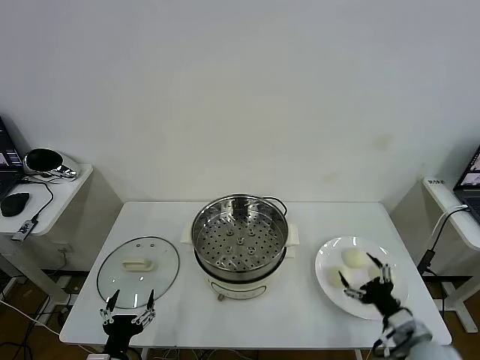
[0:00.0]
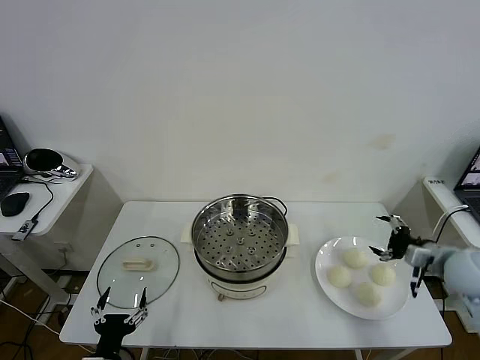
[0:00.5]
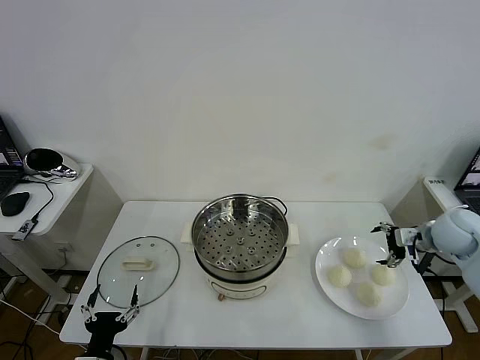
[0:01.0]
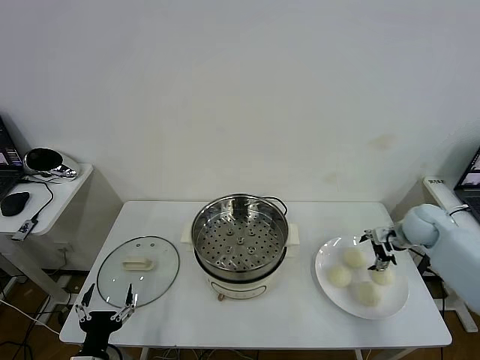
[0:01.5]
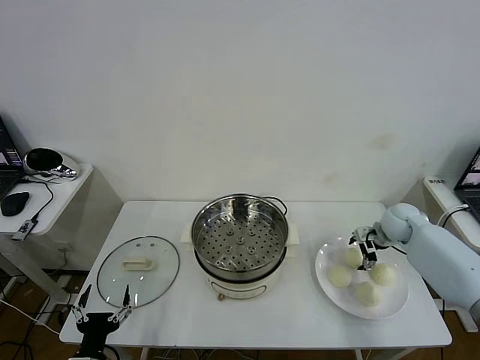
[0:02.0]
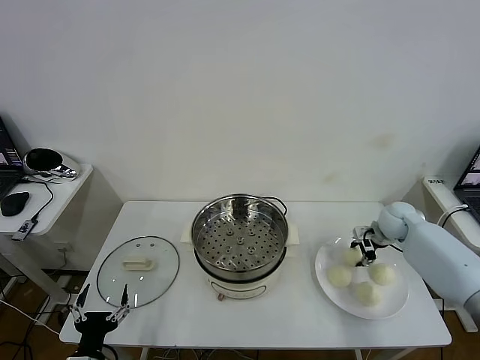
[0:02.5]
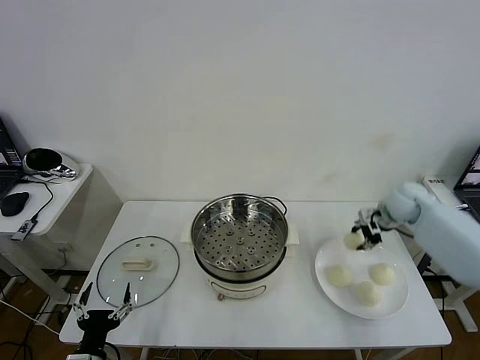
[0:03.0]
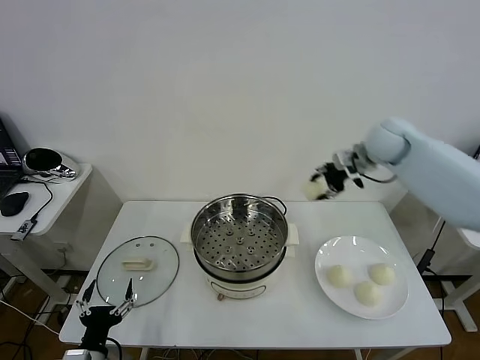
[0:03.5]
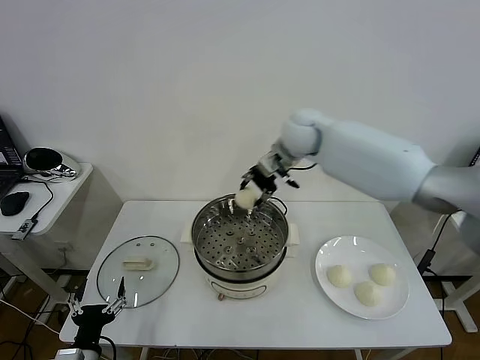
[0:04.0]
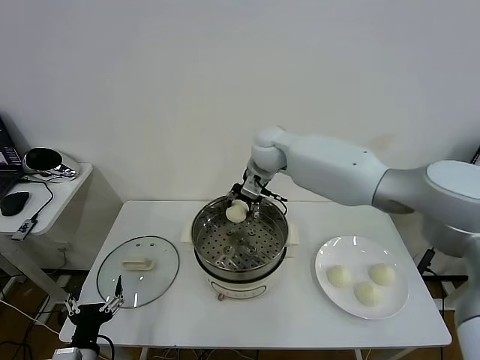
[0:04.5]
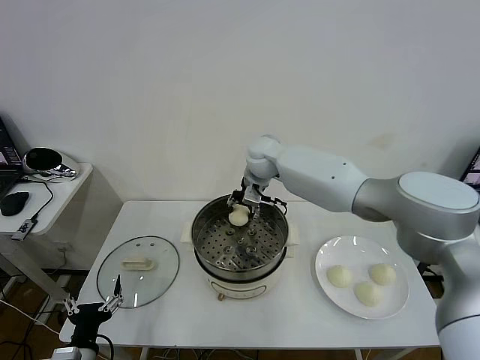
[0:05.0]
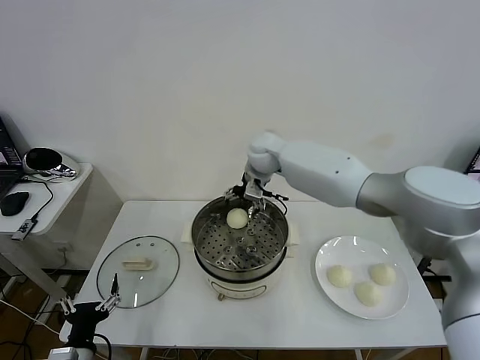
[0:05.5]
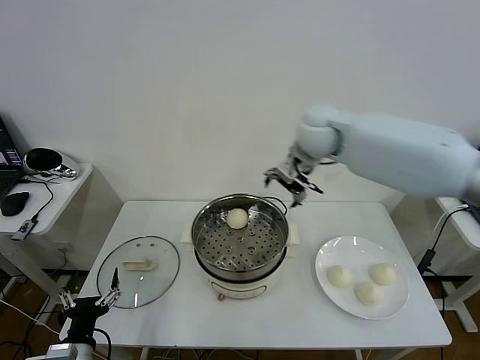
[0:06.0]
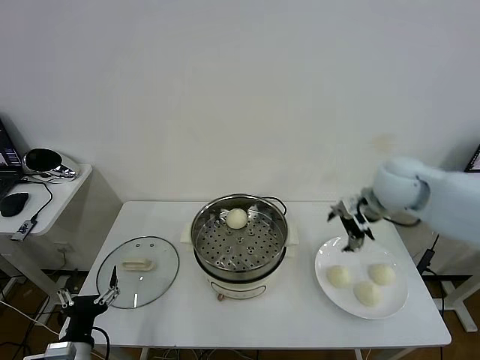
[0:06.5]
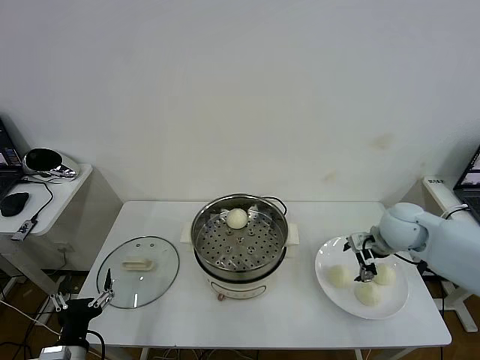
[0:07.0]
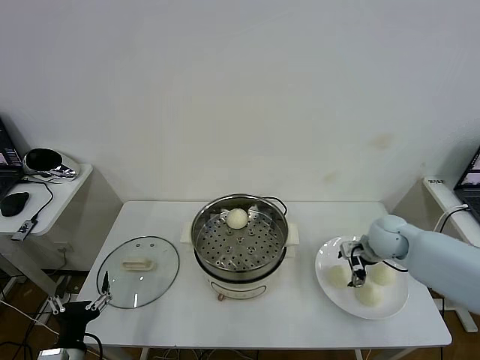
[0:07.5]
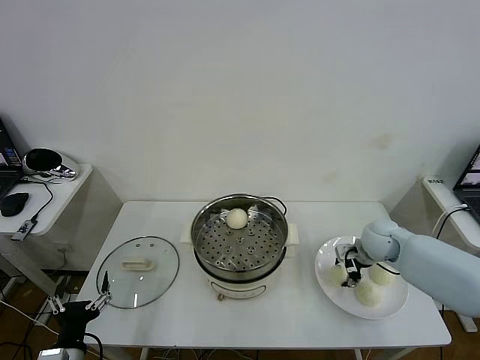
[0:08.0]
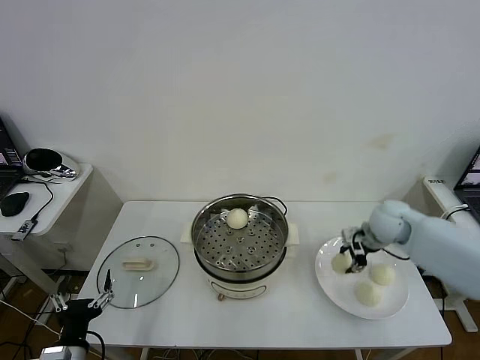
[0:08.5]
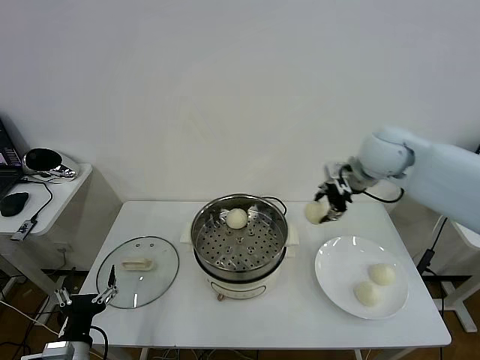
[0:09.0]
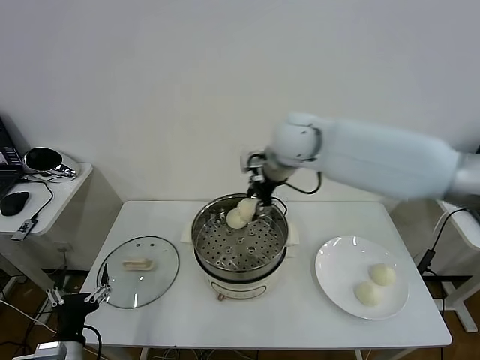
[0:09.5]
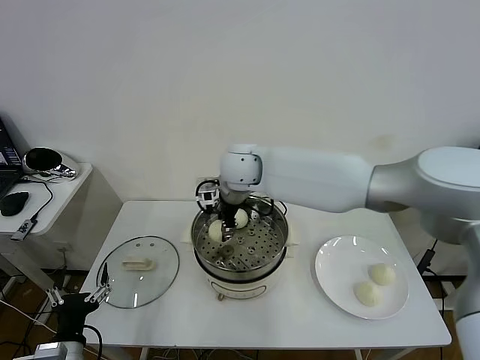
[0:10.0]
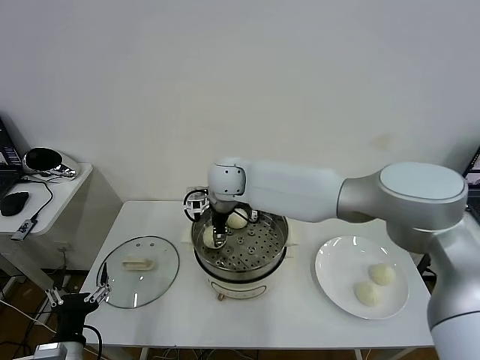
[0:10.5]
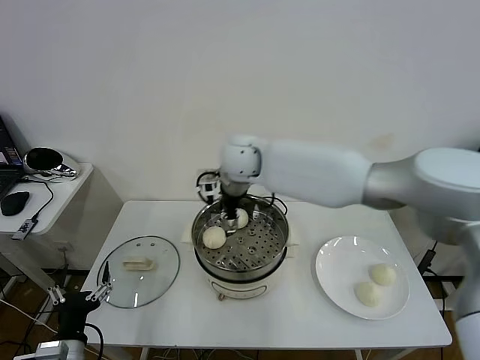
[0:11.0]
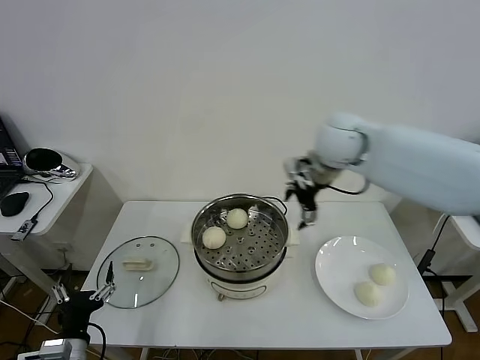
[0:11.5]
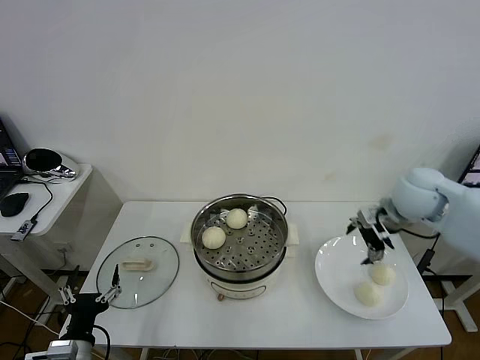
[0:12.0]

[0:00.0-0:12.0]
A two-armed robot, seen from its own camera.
Task of the whole recording: take steamed baozi put them in steamer then cover it.
Step, 0:00.0 to 0:02.5: Grasp the baozi in the plate with right gripper.
Step, 0:03.0 to 0:05.0: Place the baozi on the steamer with right gripper.
Step, 0:05.5 to 0:08.0: Grasp the baozi in the plate with right gripper.
Step, 0:08.5 to 0:10.5: Place the baozi on the steamer with right gripper.
0:02.0 to 0:04.0: The right gripper moves to the left and upward, roughly 35 cm, and closes up.
0:04.0 to 0:06.0: The right gripper opens its fingers.
0:06.0 to 0:08.0: The right gripper travels downward and to the right by about 30 cm, and closes.
0:08.0 to 0:10.0: The right gripper heads to the left and upward, covering some 40 cm.
0:10.0 to 0:12.0: The right gripper shifts some 35 cm to the right, and opens up.

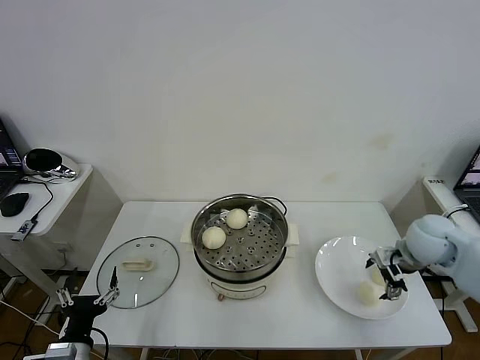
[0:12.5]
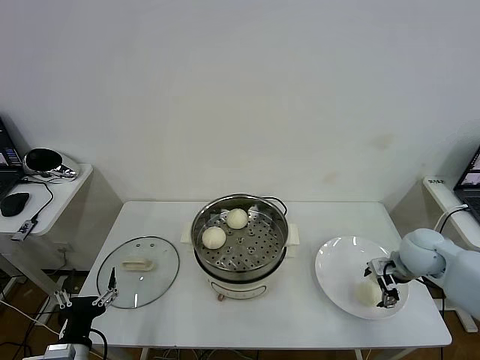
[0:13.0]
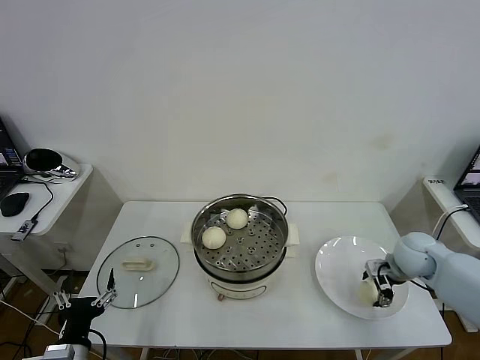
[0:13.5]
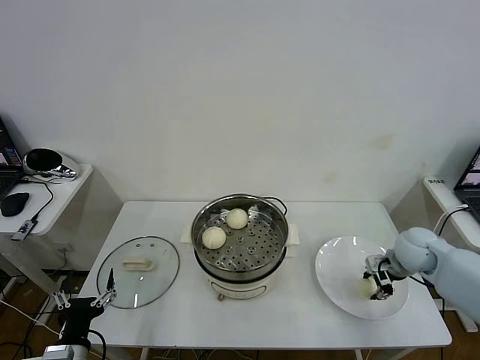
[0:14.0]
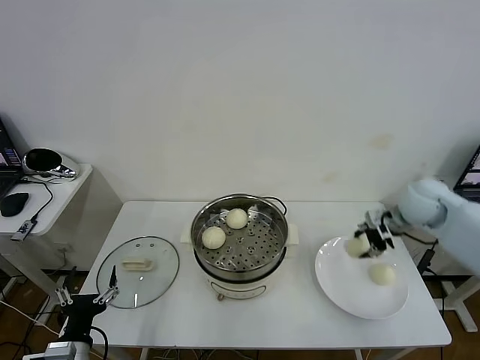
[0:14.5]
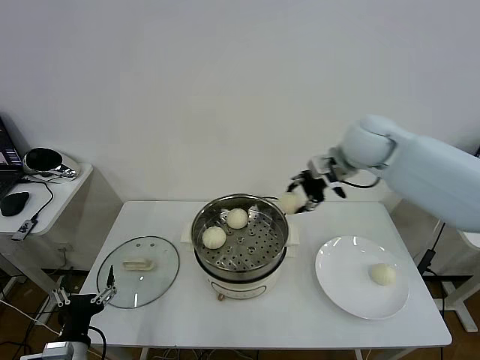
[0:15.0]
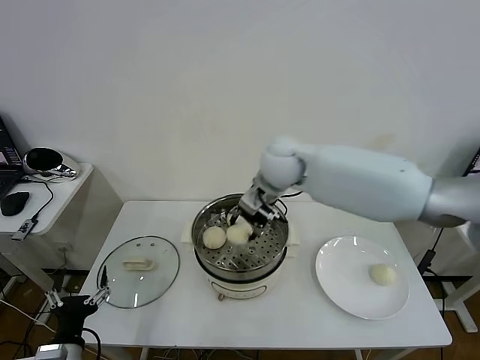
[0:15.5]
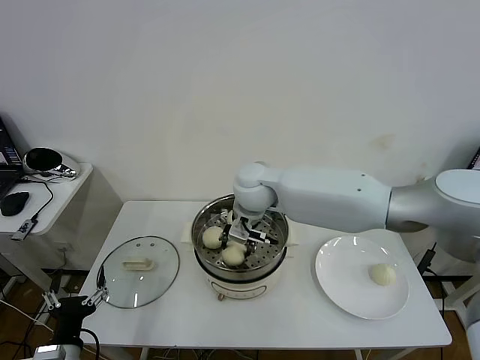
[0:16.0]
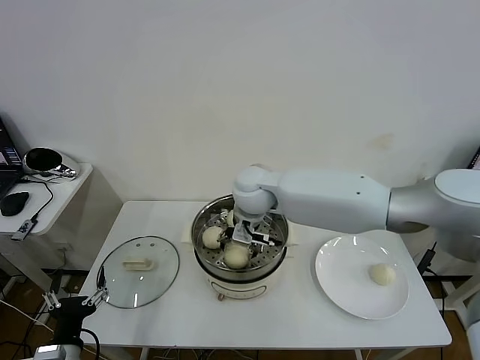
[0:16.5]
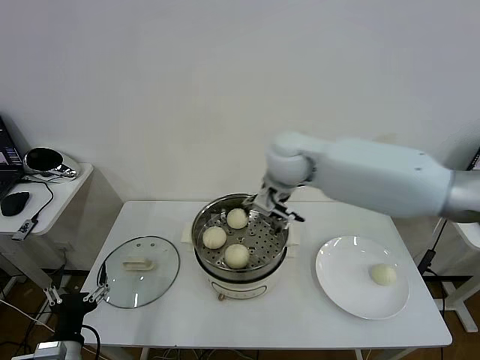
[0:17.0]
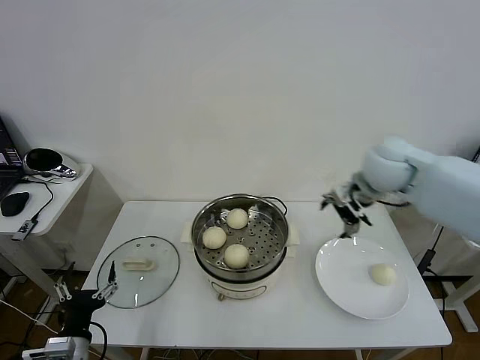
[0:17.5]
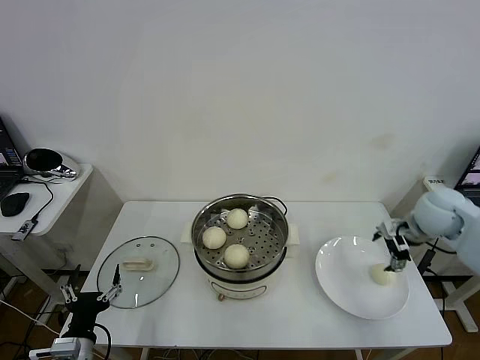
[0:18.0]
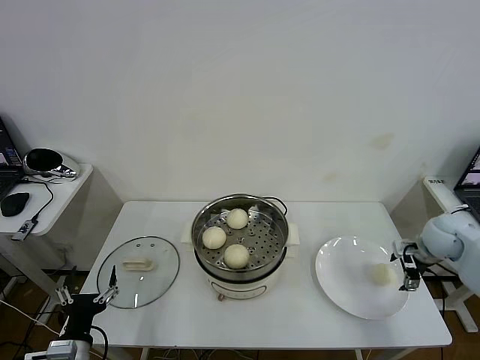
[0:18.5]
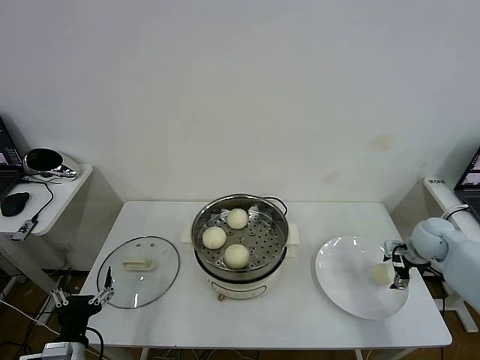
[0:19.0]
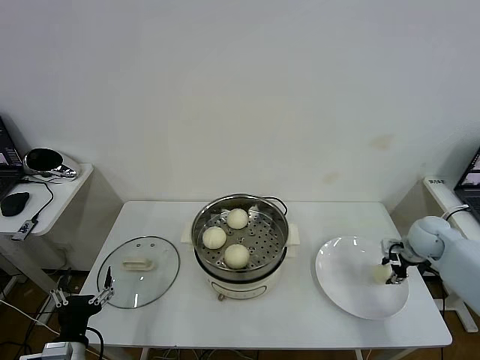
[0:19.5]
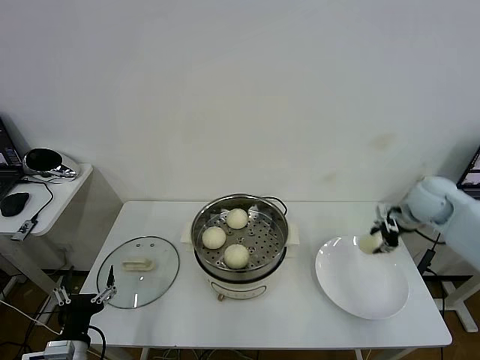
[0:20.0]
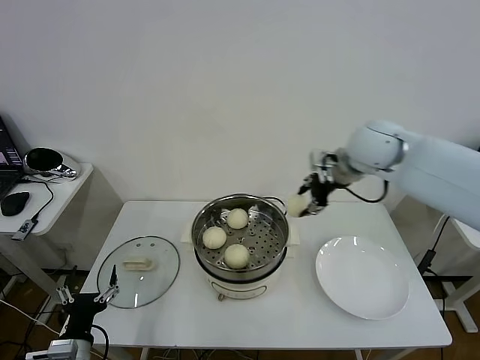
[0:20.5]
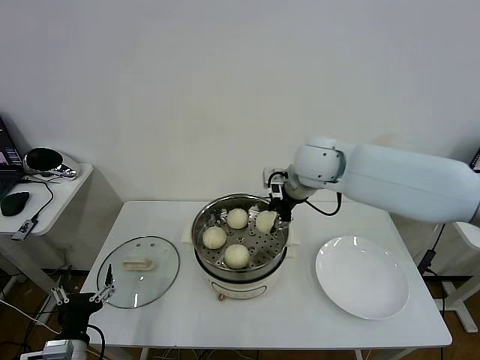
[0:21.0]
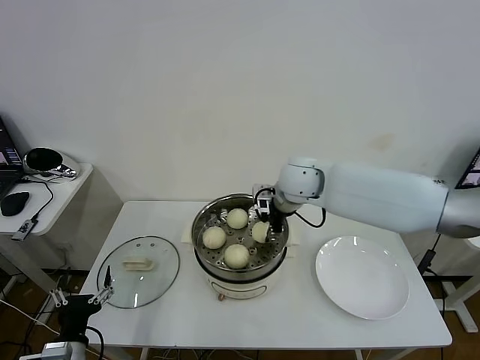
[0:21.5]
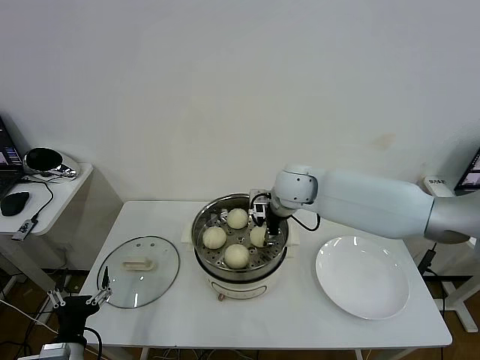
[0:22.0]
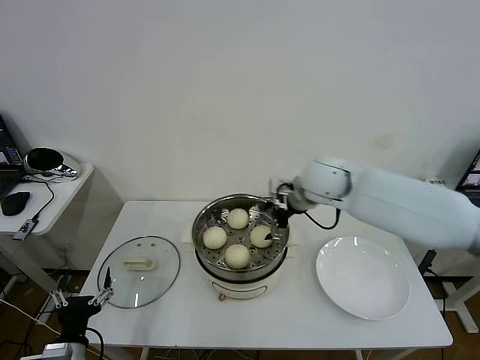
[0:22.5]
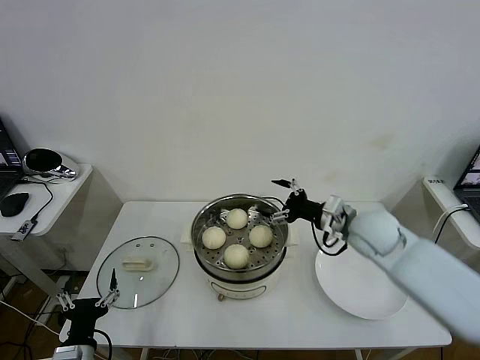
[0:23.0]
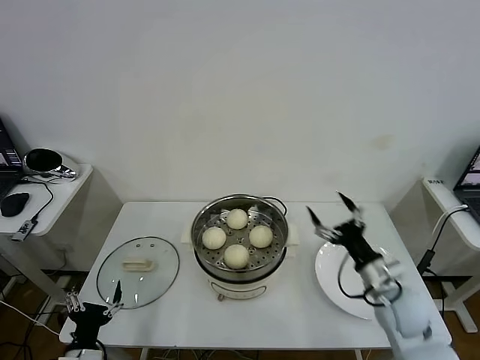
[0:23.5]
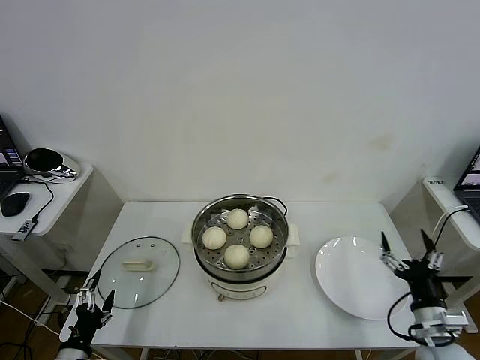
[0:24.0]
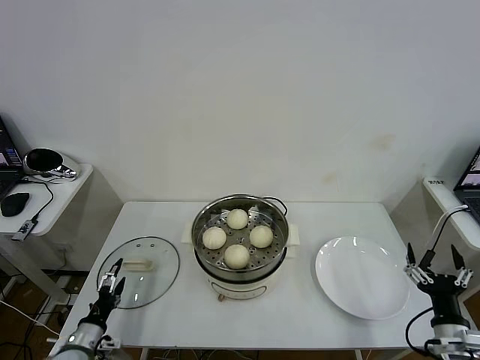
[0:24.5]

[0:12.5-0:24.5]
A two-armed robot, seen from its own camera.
Task of the whole recording: take steamed baozi put them in steamer then cover it.
Step, 0:14.0 to 0:16.5: Place the baozi on the steamer with right gripper.
Step, 0:17.0 to 0:19.5: Grasp the baozi in the plate with right gripper.
Step, 0:20.0 to 0:22.0: Place the baozi on the steamer with right gripper.
0:12.5 to 0:14.5: The right gripper heads forward and upward, covering roughly 10 cm, and closes up.
0:14.5 to 0:16.5: The right gripper shifts approximately 35 cm to the left, and opens up.
0:16.5 to 0:18.5: The right gripper moves to the right, roughly 40 cm.
0:18.5 to 0:20.5: The right gripper is displaced to the left and upward by about 30 cm, and closes.
0:20.5 to 0:22.5: The right gripper shifts roughly 10 cm to the left and downward, and opens.
0:22.5 to 0:24.5: The left gripper shifts approximately 10 cm downward and forward. Meanwhile the right gripper moves backward, to the right and downward, approximately 50 cm.

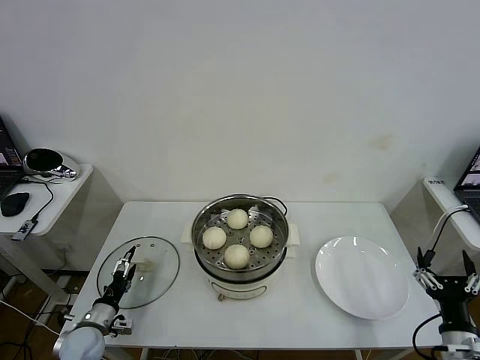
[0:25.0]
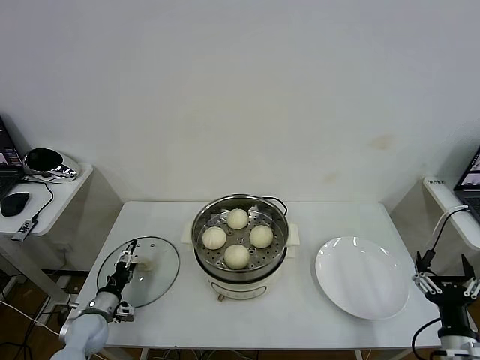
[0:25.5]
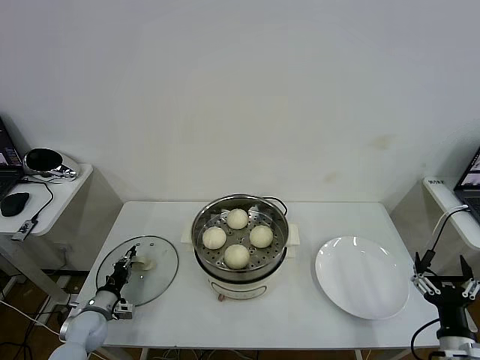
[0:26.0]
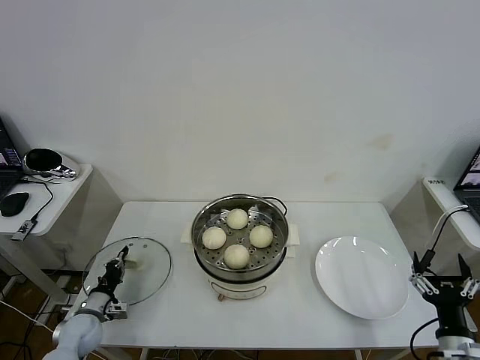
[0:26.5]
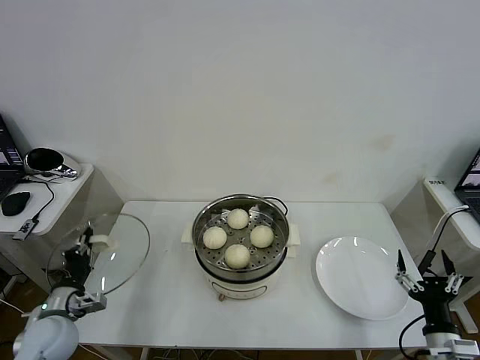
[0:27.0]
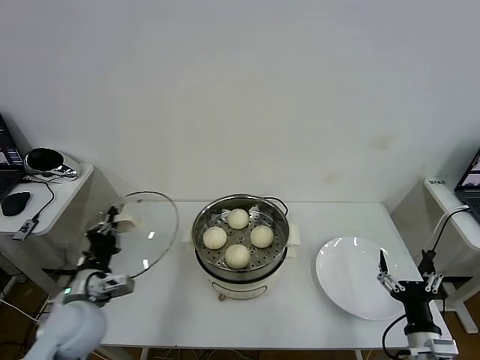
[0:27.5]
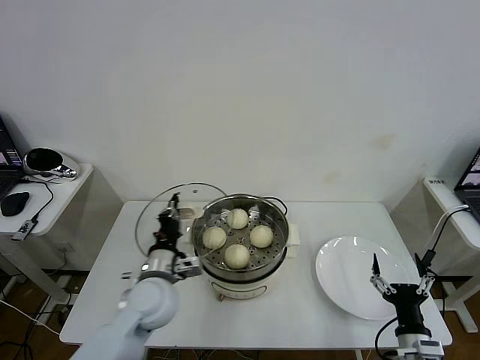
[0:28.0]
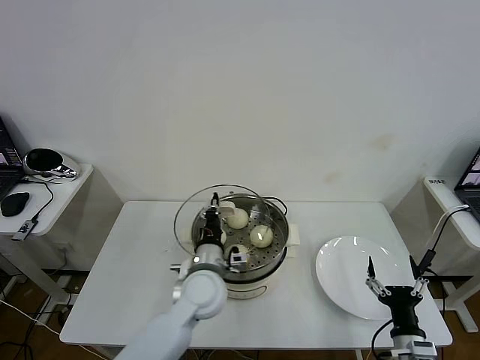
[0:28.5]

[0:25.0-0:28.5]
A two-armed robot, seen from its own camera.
Task of the whole recording: take steamed baozi put them in steamer then cover it.
0:25.0 to 0:27.0: The left gripper goes about 10 cm upward, and closes up.
0:27.0 to 0:28.5: The right gripper goes roughly 5 cm to the left; the left gripper shifts approximately 30 cm to the right.
